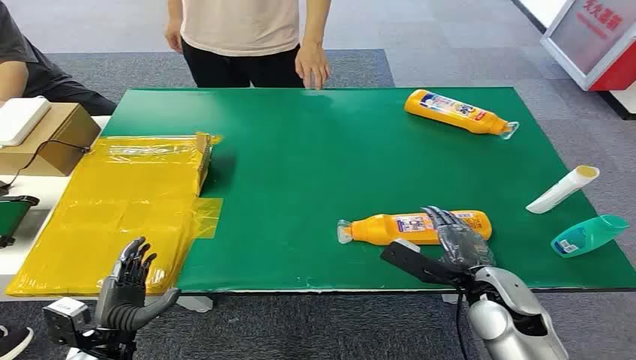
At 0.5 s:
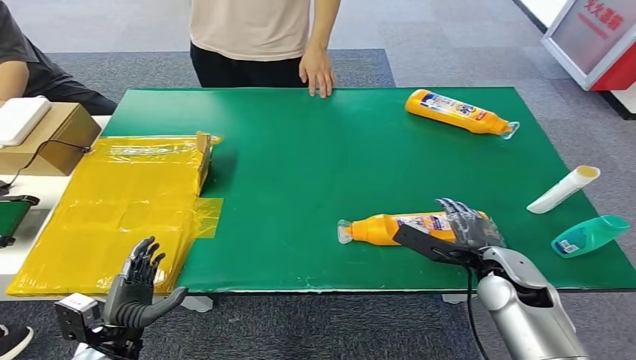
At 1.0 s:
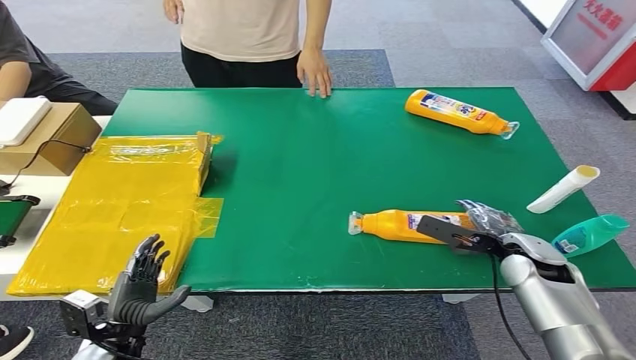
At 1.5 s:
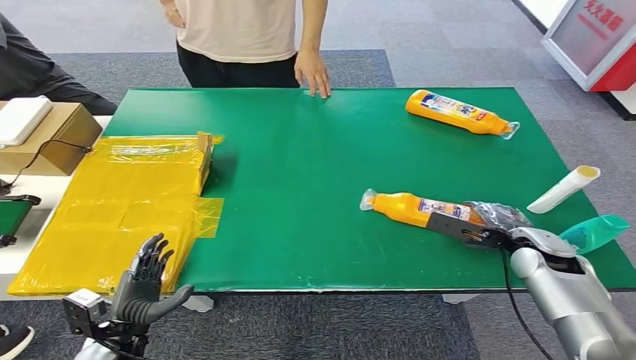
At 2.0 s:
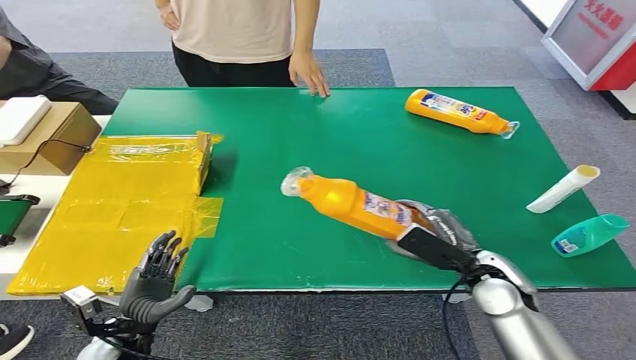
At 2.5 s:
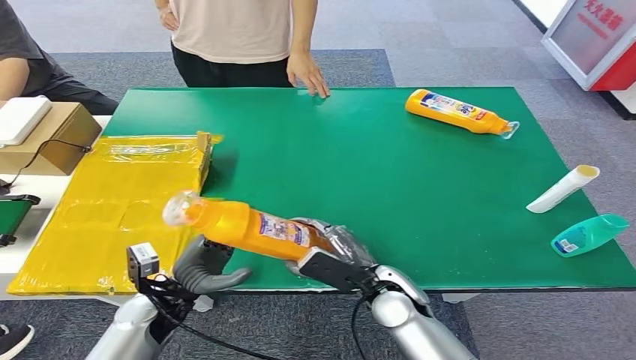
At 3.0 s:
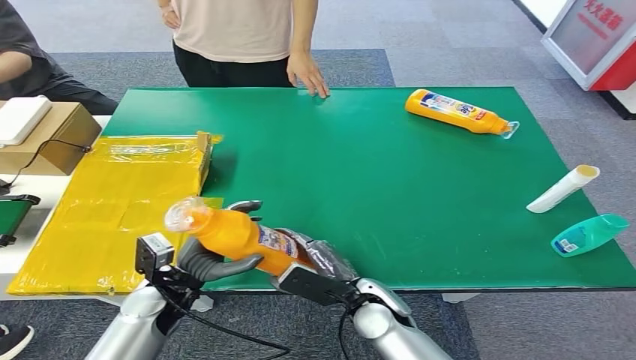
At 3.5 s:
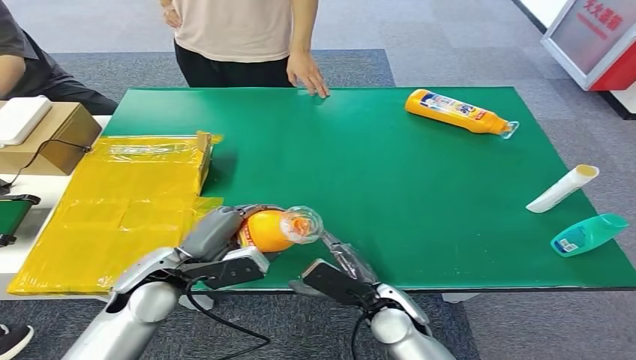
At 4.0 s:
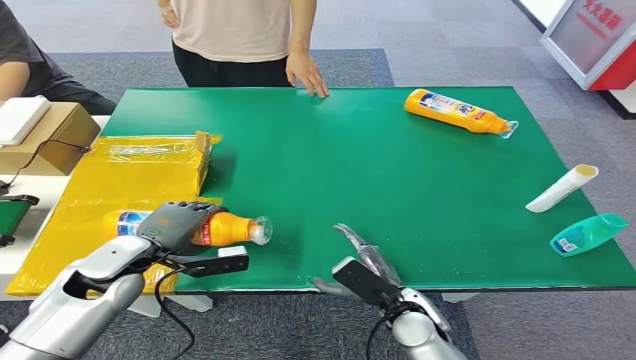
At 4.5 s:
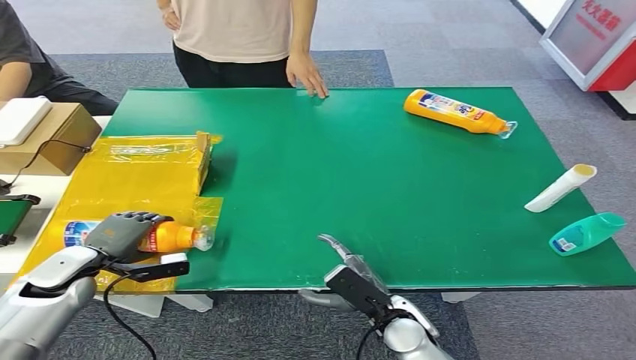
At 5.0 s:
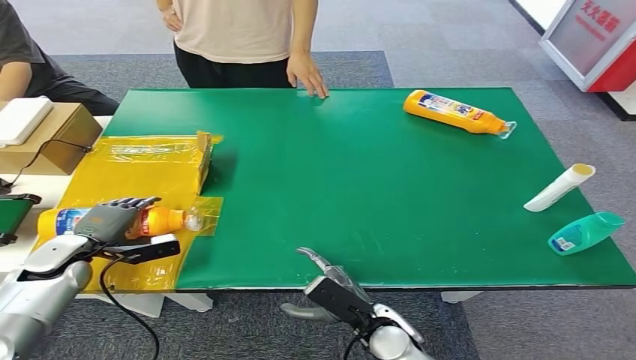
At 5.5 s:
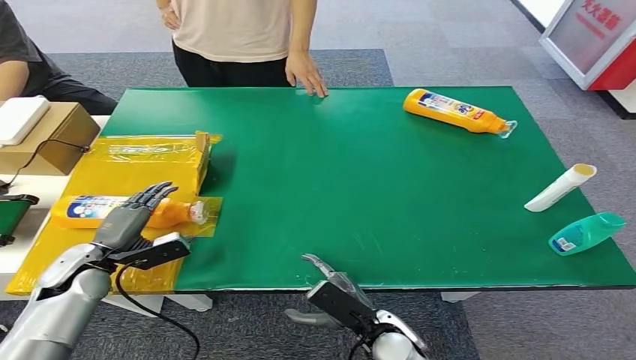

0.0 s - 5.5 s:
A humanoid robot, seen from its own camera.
Step, 0.0 s - 1.5 s: Pick up the bottle from the table.
Step, 2.5 s - 5.5 s: Turn the bottle to the front side.
2.0 s - 3.5 s: The left hand moves upward, forward and to the right, roughly 20 cm, while the right hand shifts approximately 15 cm to the left and downward.
3.5 s - 5.5 s: The right hand moves approximately 5 cm. The left hand shifts roughly 15 cm to the left and downward.

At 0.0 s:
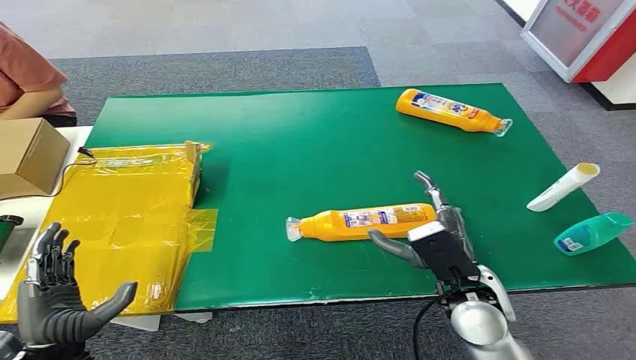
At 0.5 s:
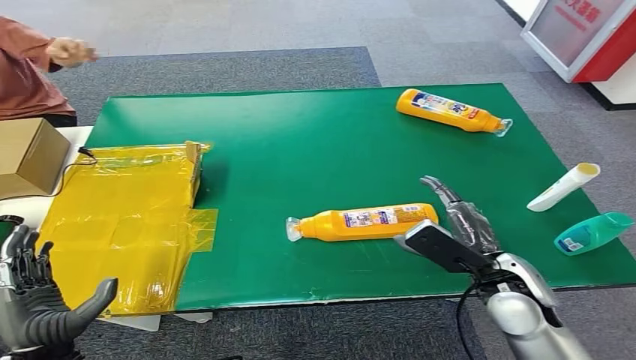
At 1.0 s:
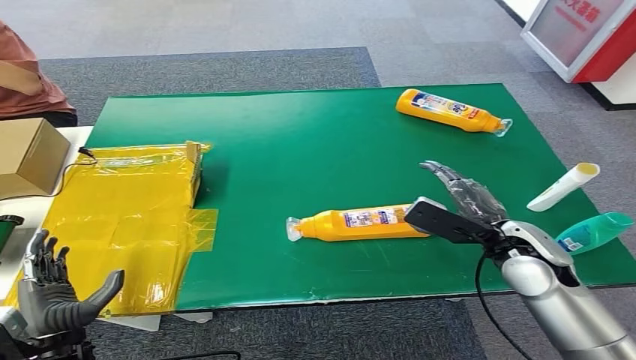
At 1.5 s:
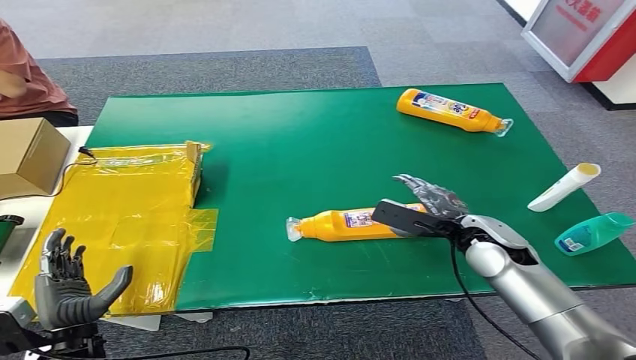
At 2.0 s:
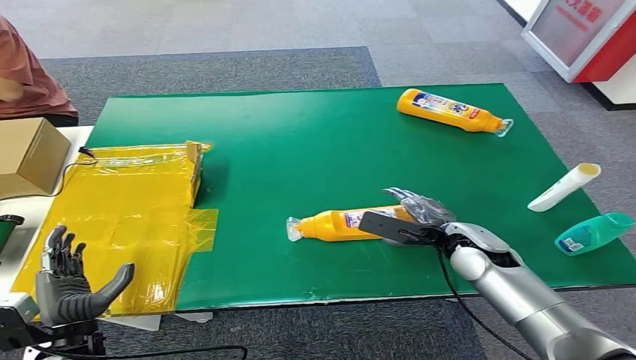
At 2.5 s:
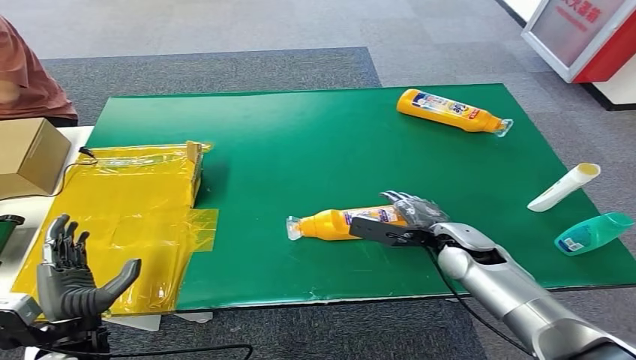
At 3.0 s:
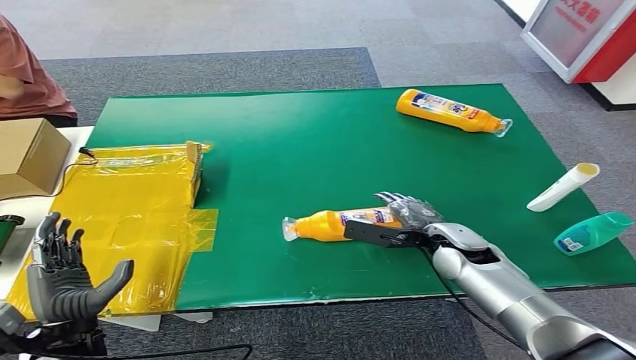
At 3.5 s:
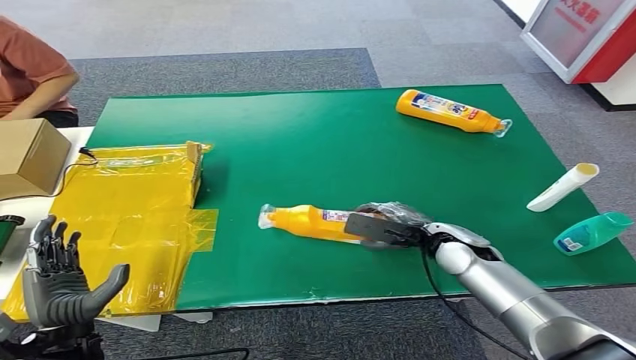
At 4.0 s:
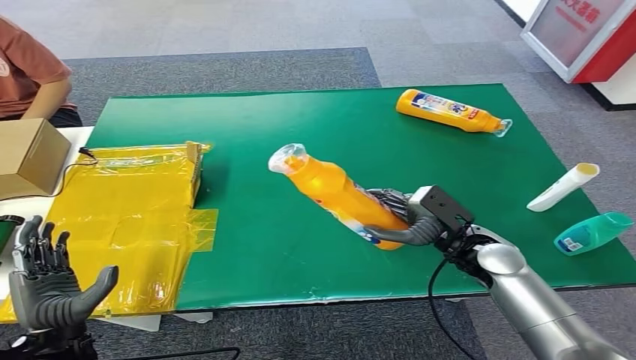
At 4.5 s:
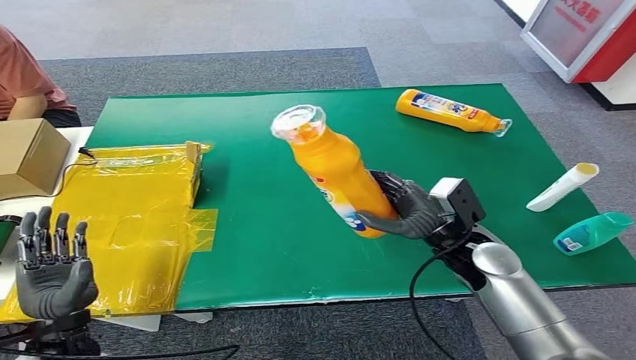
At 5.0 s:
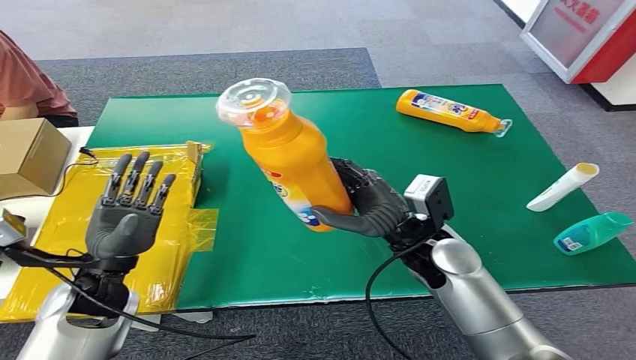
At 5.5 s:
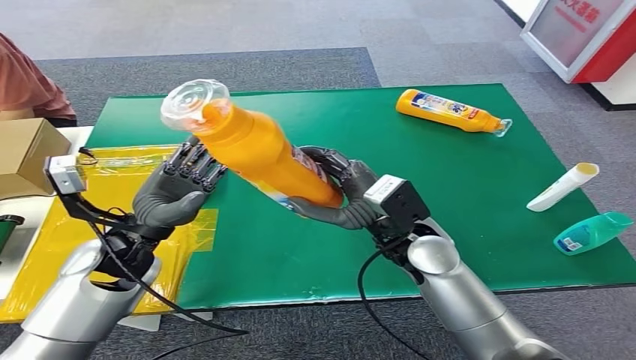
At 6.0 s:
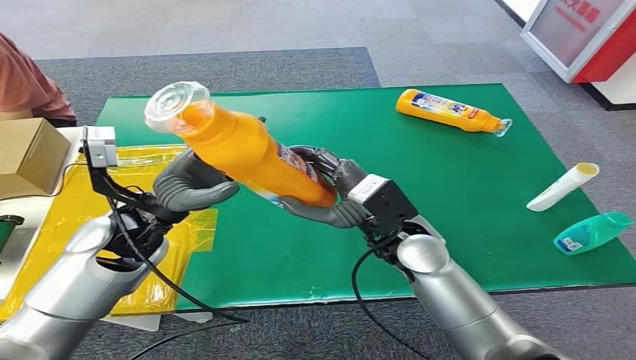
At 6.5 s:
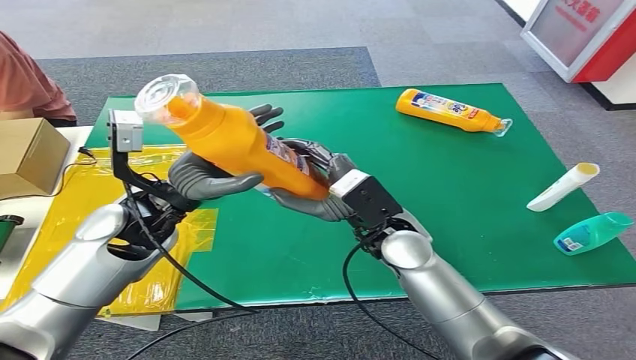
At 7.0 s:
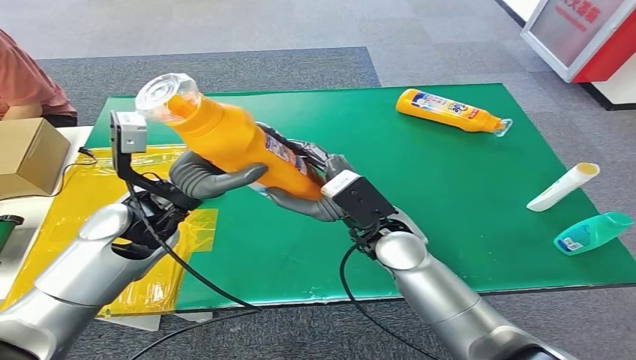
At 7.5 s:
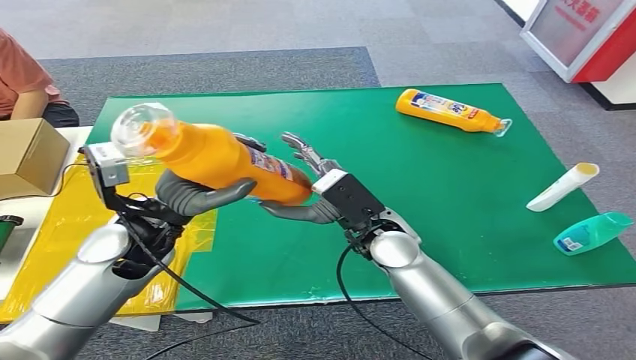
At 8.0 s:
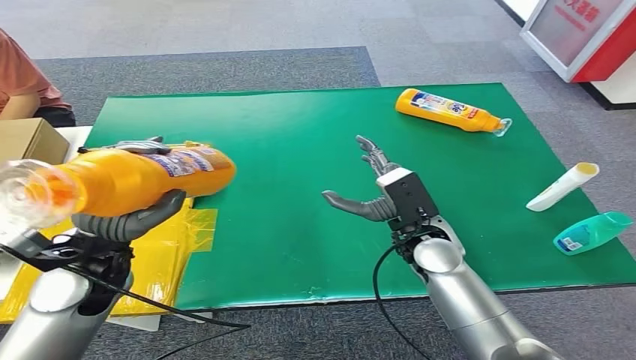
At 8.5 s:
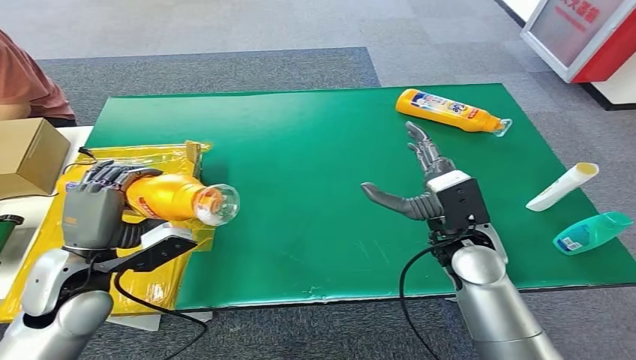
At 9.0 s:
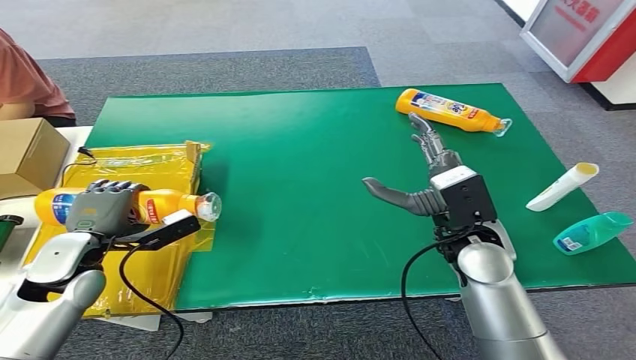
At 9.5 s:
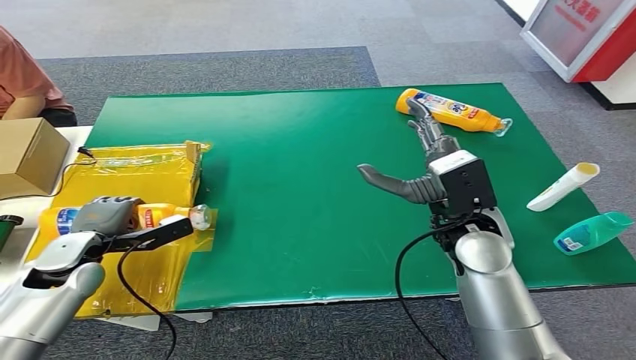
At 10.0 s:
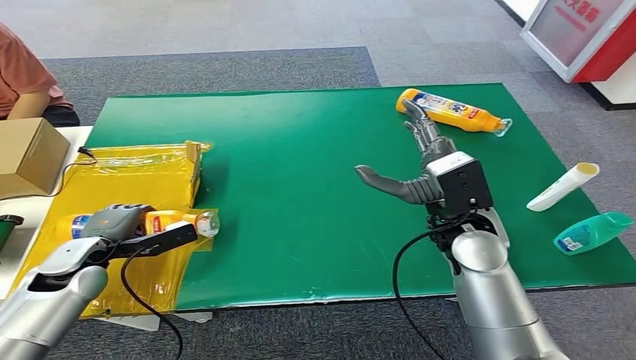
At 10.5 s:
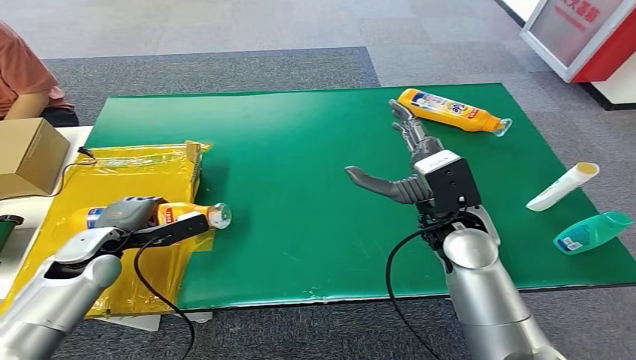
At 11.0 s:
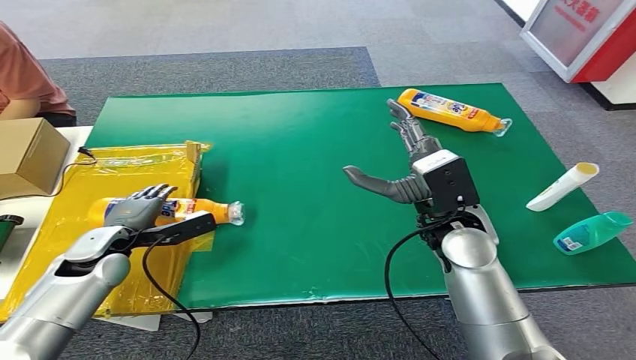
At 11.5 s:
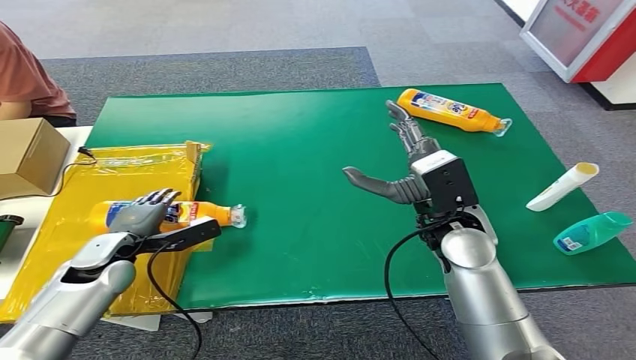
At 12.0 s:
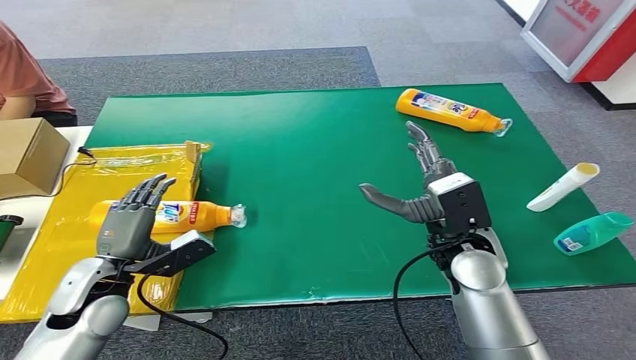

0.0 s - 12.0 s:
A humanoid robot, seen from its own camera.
Step, 0.0 s - 3.5 s: Pick up the bottle from the table.
Step, 4.5 s - 12.0 s: Turn the bottle to the front side.
10.0 s - 12.0 s: The left hand goes some 10 cm to the right and backward.

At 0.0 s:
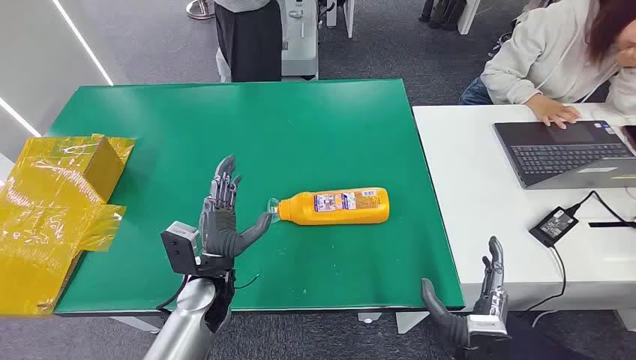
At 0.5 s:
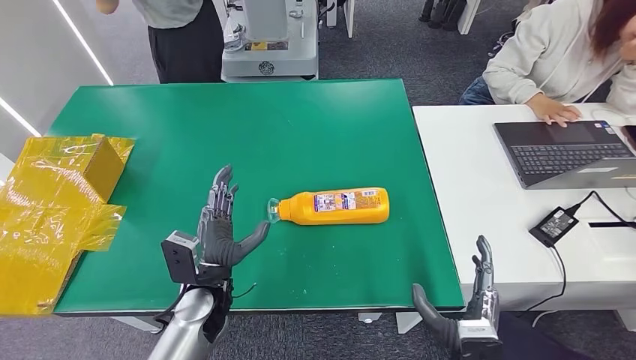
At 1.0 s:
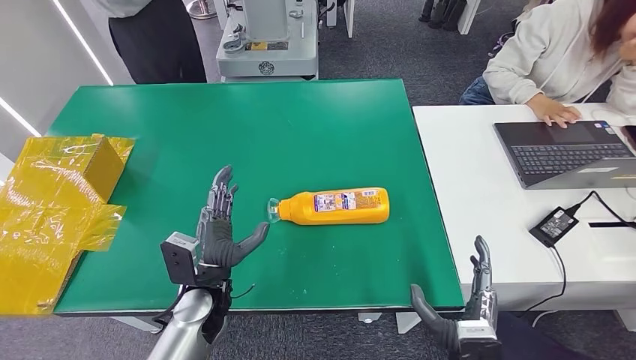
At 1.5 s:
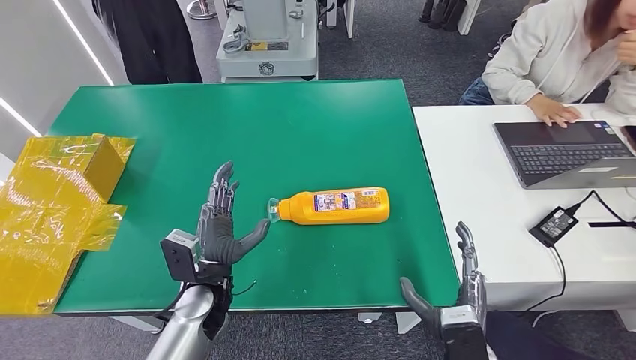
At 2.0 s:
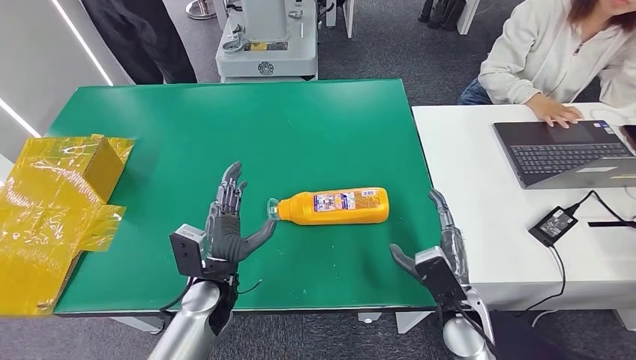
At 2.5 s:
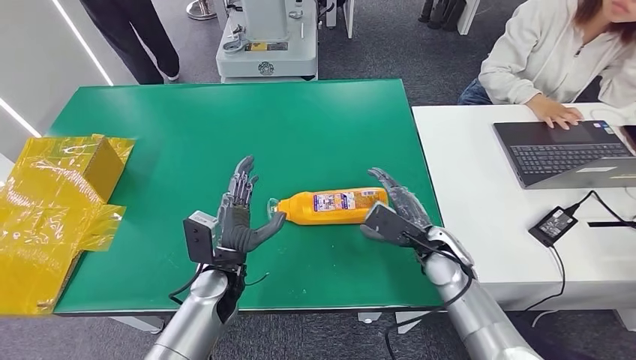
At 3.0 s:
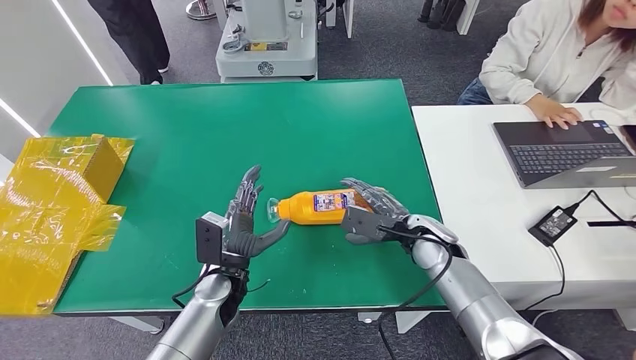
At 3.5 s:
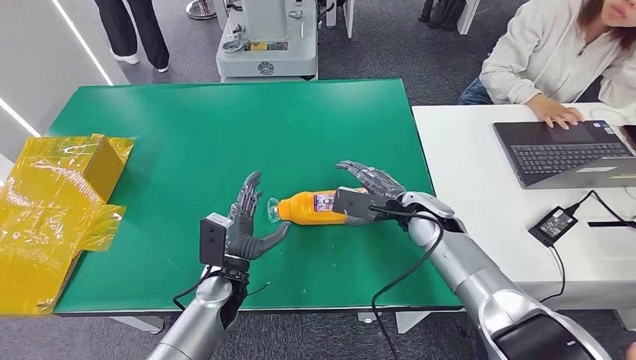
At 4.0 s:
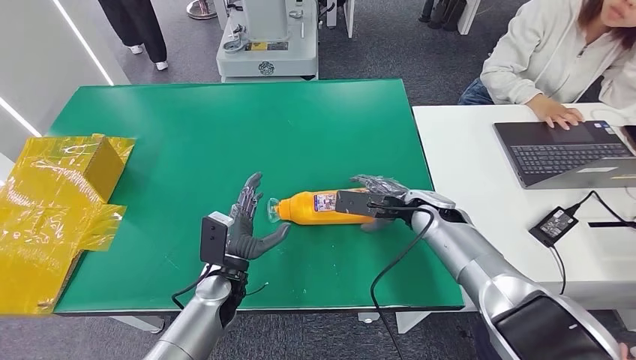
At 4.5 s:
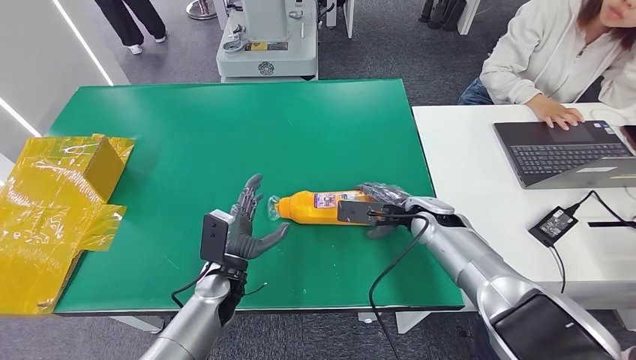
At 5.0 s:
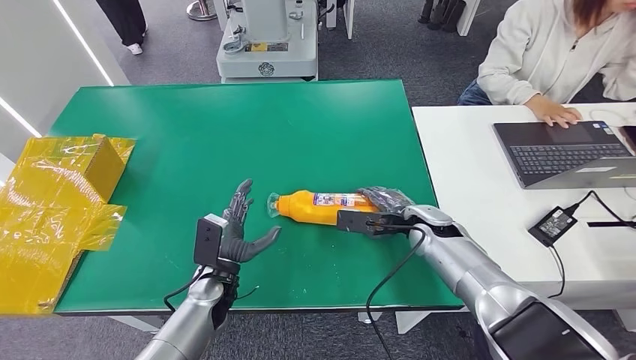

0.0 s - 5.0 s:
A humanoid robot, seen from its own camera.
2.5 s - 5.0 s: The left hand ends up some 5 cm from where it was, while the right hand shifts approximately 5 cm forward.
